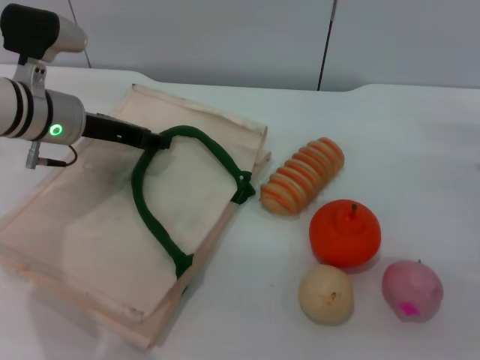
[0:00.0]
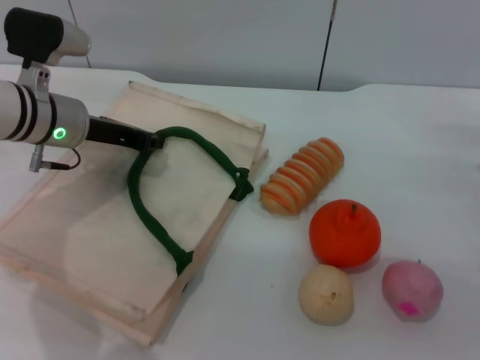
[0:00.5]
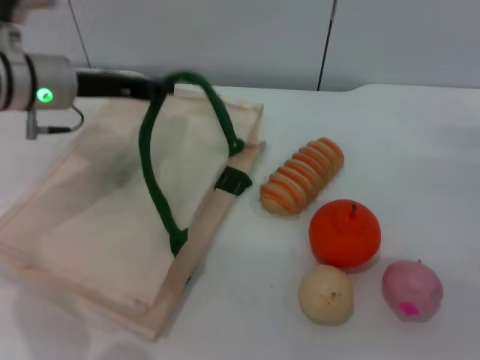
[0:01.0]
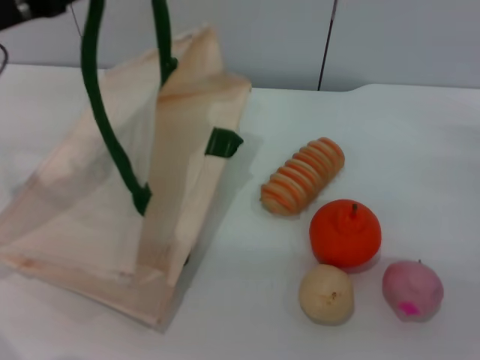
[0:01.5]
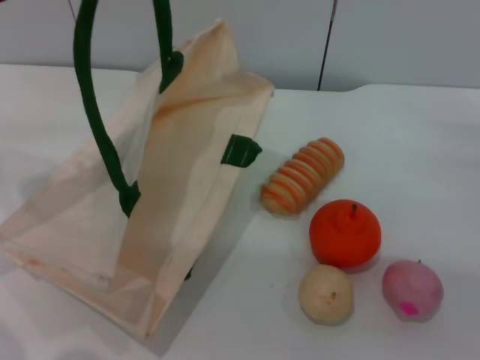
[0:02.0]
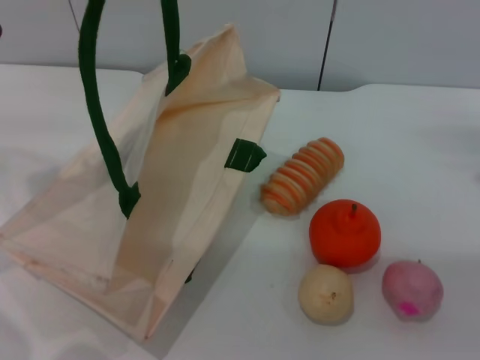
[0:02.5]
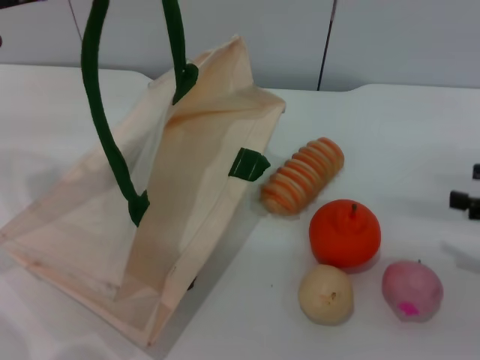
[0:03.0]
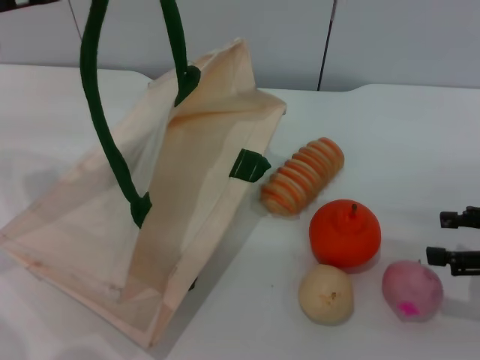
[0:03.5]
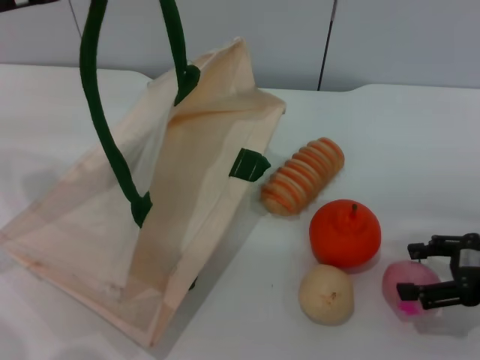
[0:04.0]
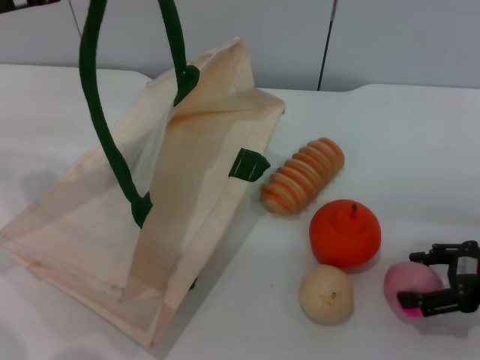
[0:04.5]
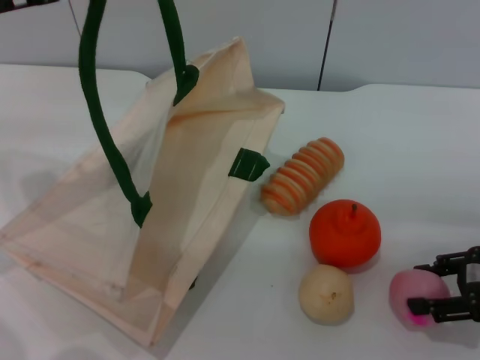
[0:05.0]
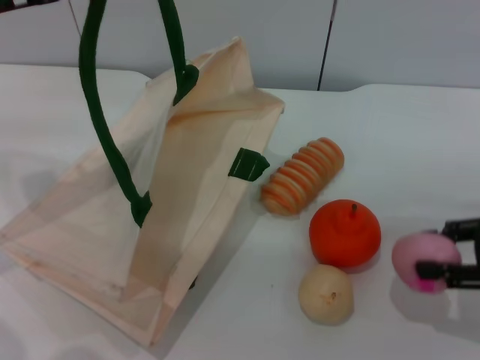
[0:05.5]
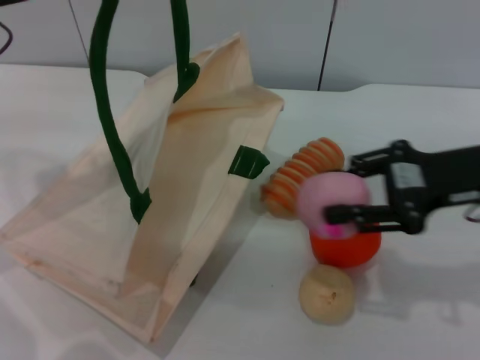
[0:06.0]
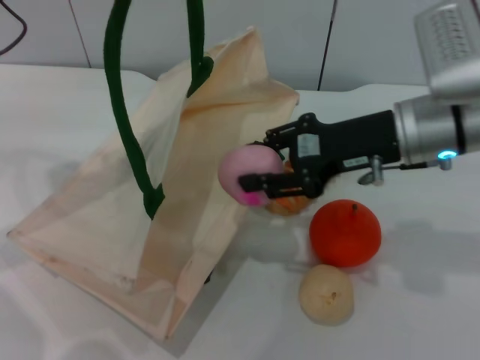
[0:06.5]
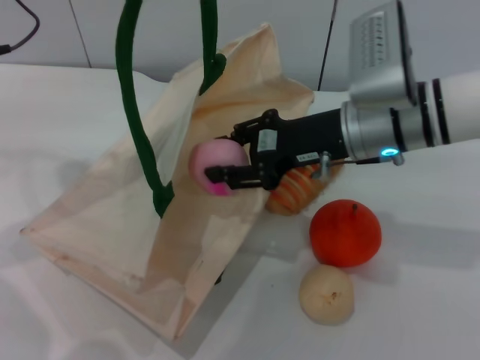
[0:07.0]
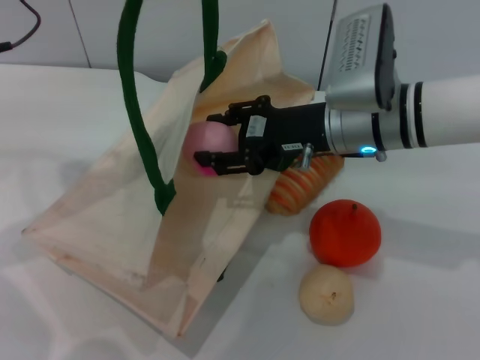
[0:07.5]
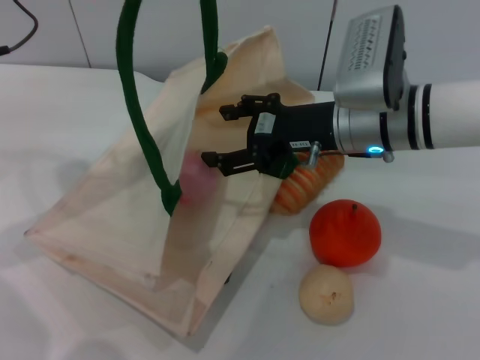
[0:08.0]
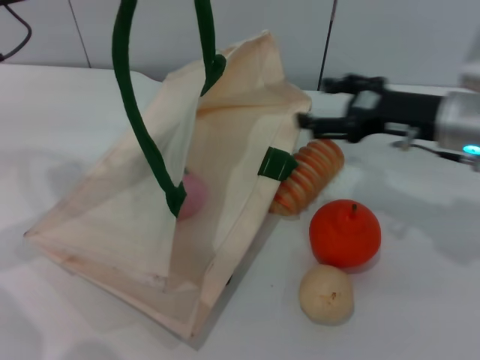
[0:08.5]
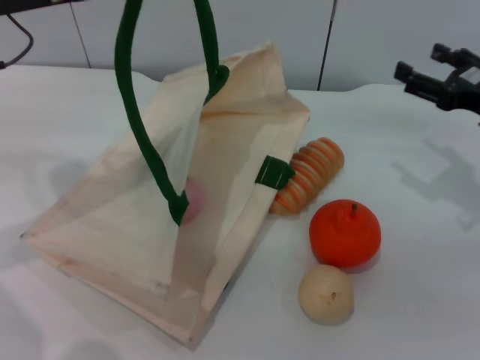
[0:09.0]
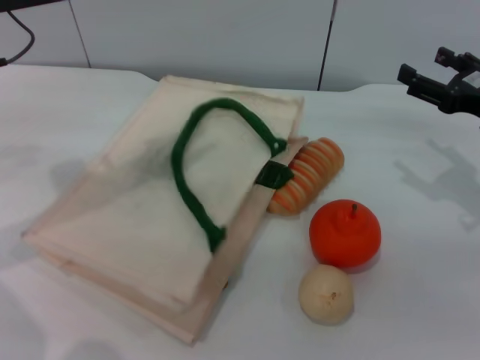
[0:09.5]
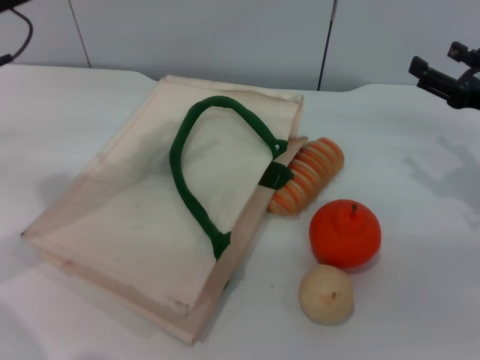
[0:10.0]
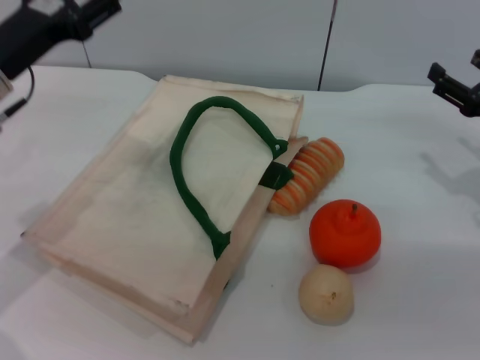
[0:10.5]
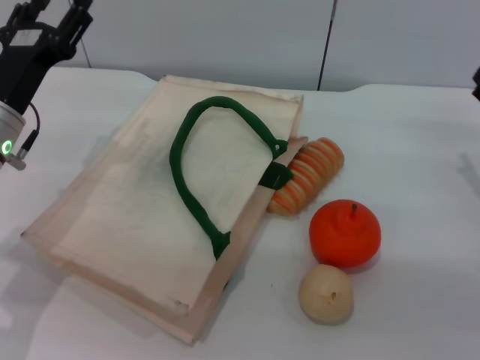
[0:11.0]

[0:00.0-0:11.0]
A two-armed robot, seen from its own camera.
Task of the whole recording: pick up the peach from the table and place it in the white handbag.
Step, 0:01.5 to 0:05.5: Pick up the peach with the right gripper.
Step, 0:06.0 to 0:08.0: Place the peach into the woven bag with the right gripper.
0:00.0 to 0:02.0: The left gripper goes about 15 cm upward, to the left and backward, and closes its fingers.
0:02.0 to 0:03.5: The right gripper ends up approximately 5 cm from where it was.
0:03.5 to 0:05.5: The right gripper closes up.
0:05.5 to 0:07.5: The right gripper shifts some 25 cm to the left and forward.
0:07.5 to 0:09.0: The right gripper moves to the right, roughly 20 cm, and opens.
0:09.0 to 0:11.0: The left gripper is displaced downward by roughly 15 cm, and opens its fingers; the right gripper shifts by approximately 5 cm.

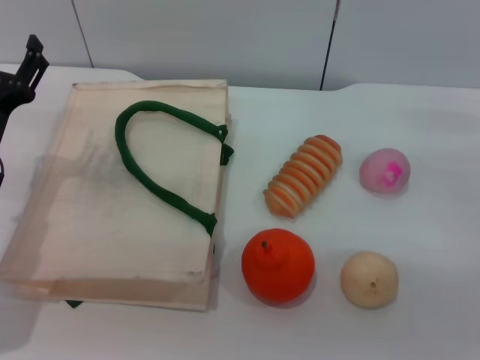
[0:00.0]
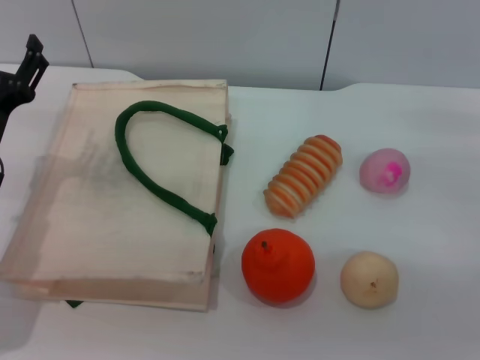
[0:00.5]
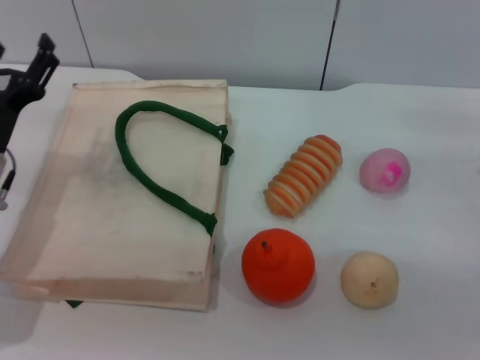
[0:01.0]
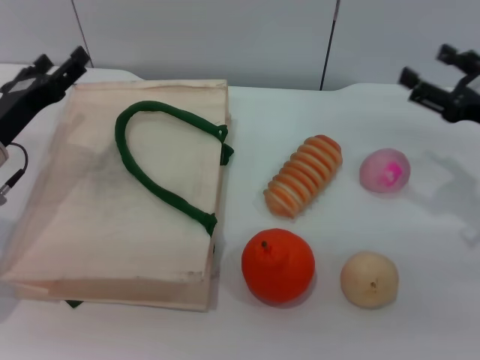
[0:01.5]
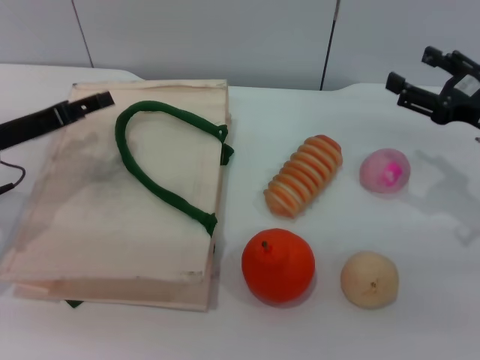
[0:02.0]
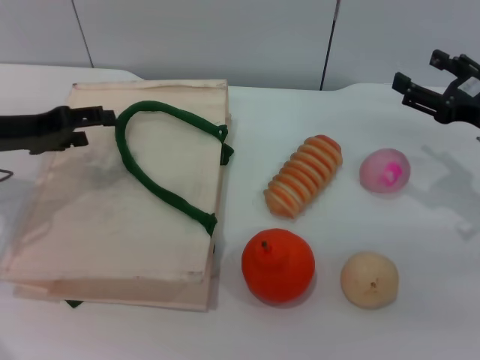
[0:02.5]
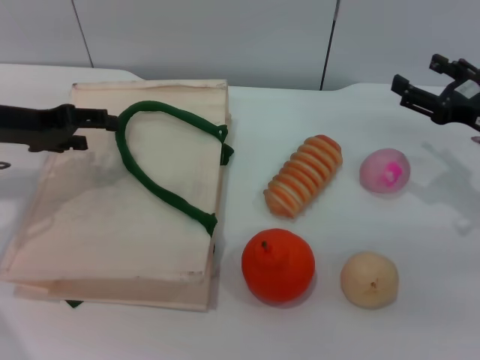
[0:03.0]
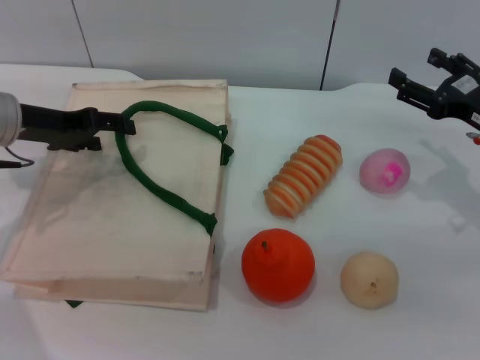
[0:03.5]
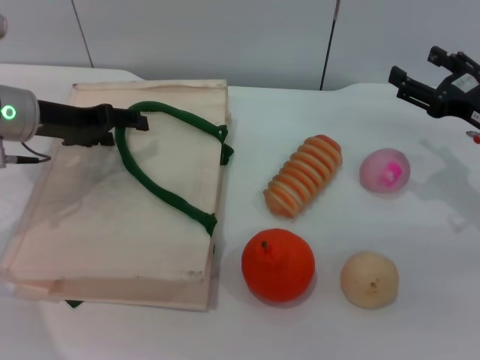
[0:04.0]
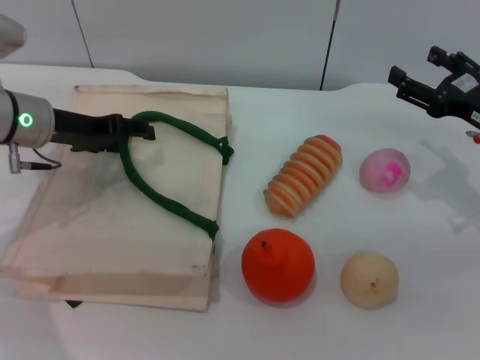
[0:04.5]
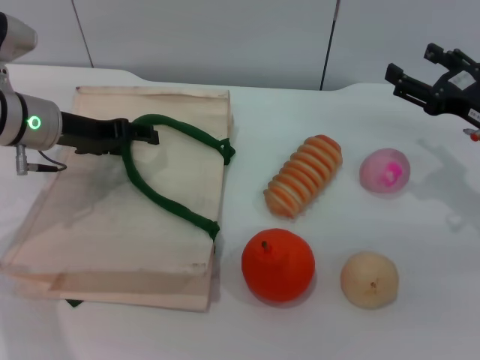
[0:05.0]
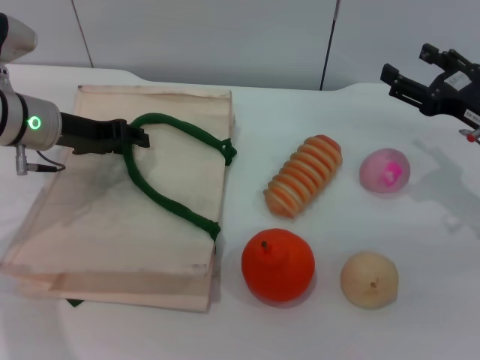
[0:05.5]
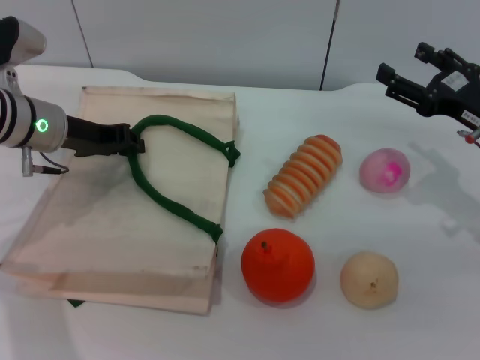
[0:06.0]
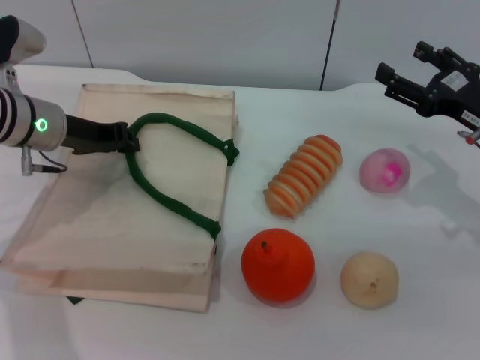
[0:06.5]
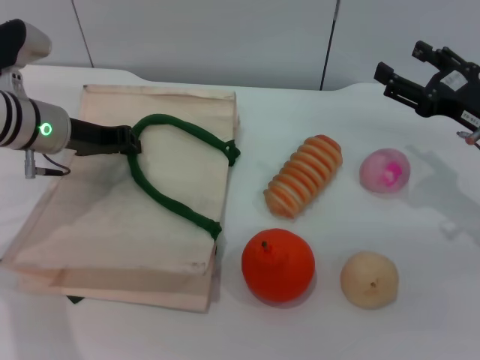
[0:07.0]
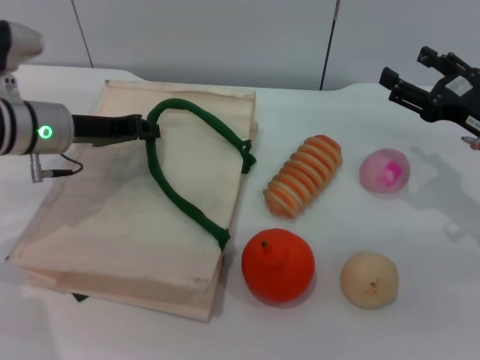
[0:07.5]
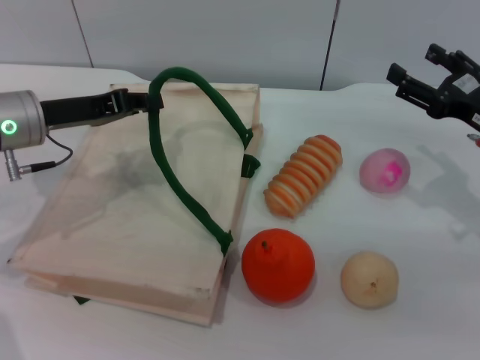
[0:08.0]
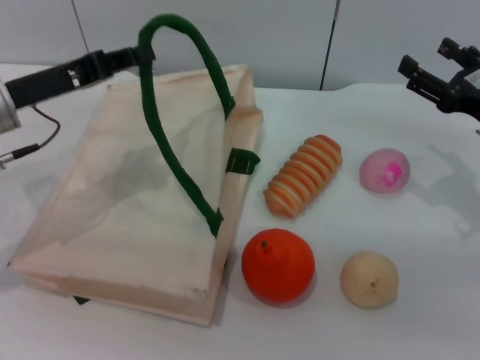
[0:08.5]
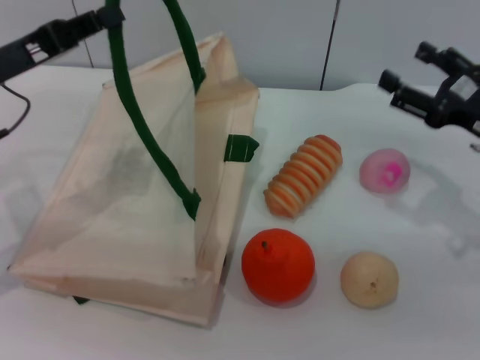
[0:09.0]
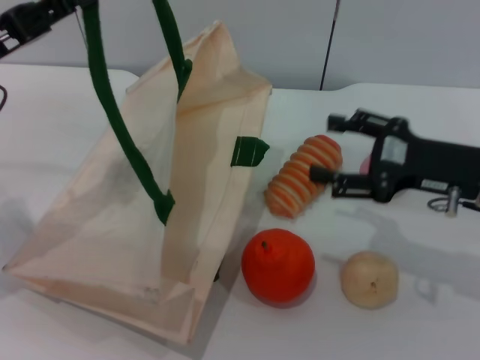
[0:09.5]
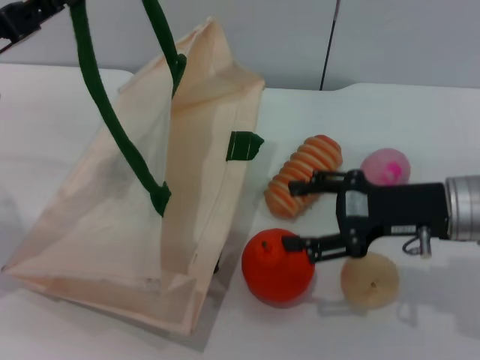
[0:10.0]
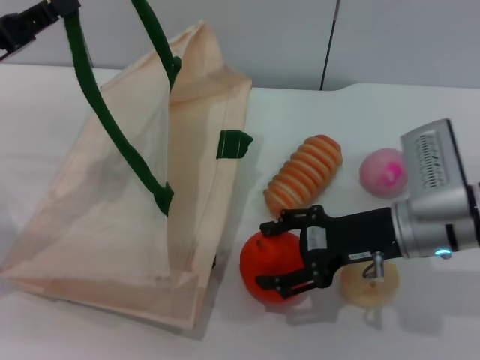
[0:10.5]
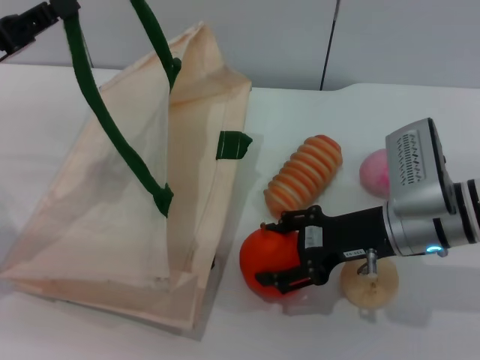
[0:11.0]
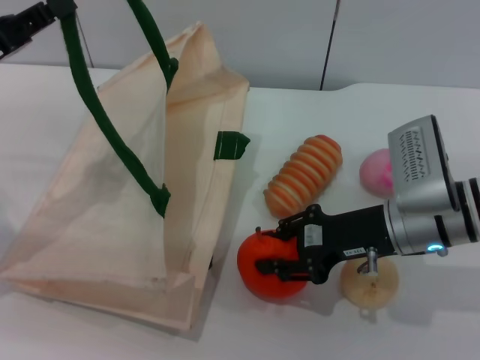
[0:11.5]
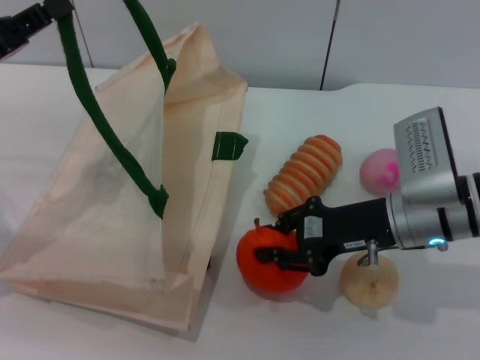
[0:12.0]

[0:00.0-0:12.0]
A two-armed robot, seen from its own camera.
Task of the whole recording: pick up the orange and peach from the table and place it in the white handbag.
Step, 0:00.0 to 0:08.5: Lift the woven bag with the left gripper to open it.
0:00.0 to 0:02.0: The right gripper shifts by roughly 5 cm; the left gripper moves about 5 cm.
0:02.0 to 0:04.0: The left gripper is displaced forward by about 5 cm.
0:04.0 to 0:06.0: The left gripper closes.
0:08.0 to 0:10.0: The left gripper is displaced backward by some 5 cm; the right gripper moves to the left, approximately 5 cm.
0:10.0 to 0:12.0: The right gripper closes.

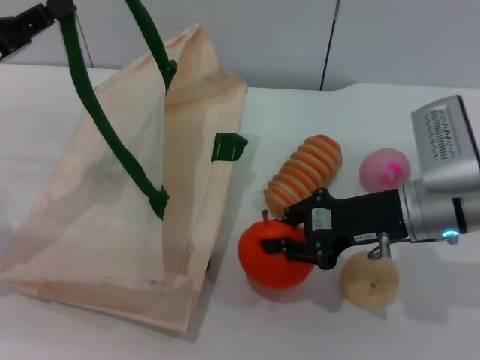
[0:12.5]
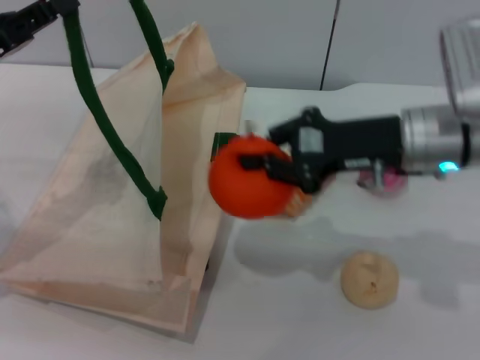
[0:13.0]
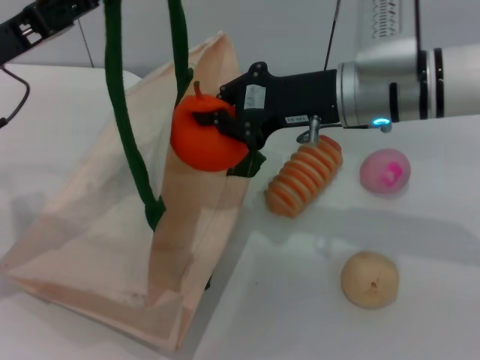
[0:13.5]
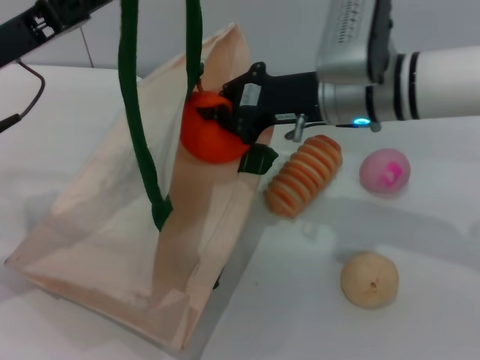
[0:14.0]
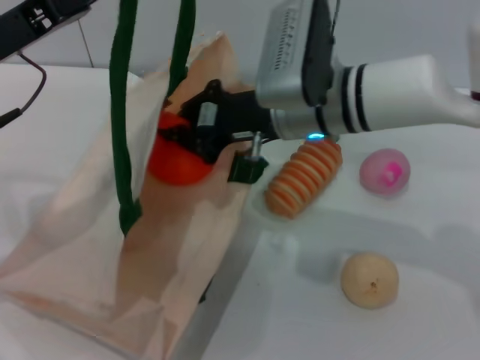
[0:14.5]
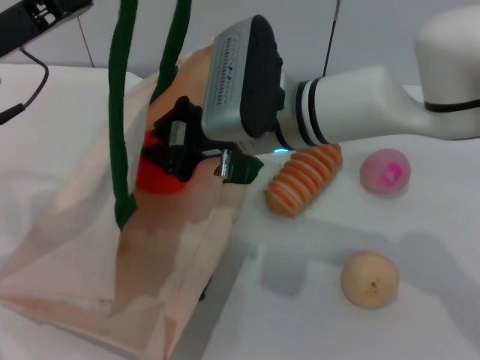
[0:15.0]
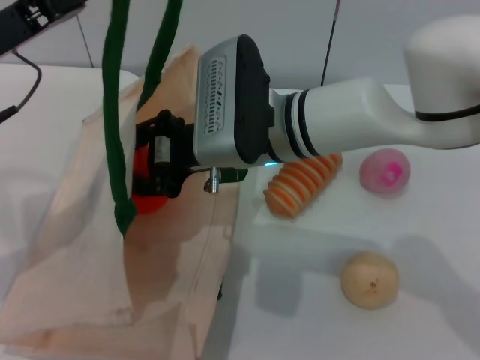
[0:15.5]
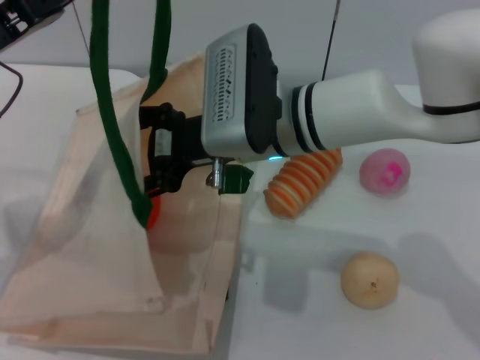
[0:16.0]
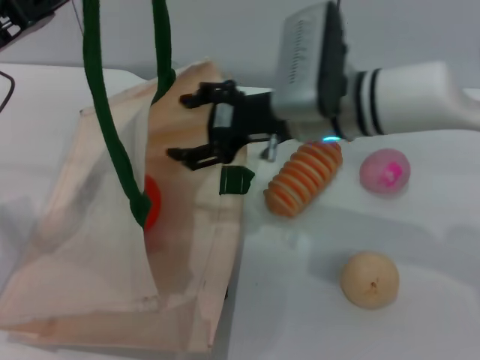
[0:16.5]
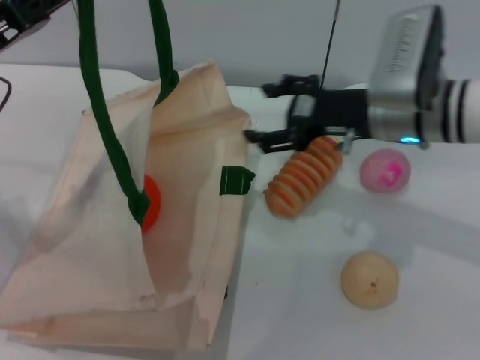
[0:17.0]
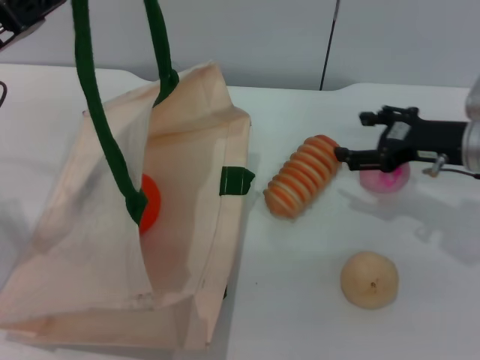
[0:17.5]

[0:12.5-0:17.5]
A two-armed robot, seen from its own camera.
Task of the whole recording: pick up the orange and peach from the table and place it in the white handbag.
Step, 0:13.0 to 0:16.5: Place the orange into the woven bag with the right gripper.
0:12.5 to 0:15.0: The left gripper goes roughly 5 cm to the right. Meanwhile the right gripper moves to the left, roughly 15 cm.
0:15.0 to 0:17.5: The right gripper goes roughly 25 cm to the right, and opens its fingers.
